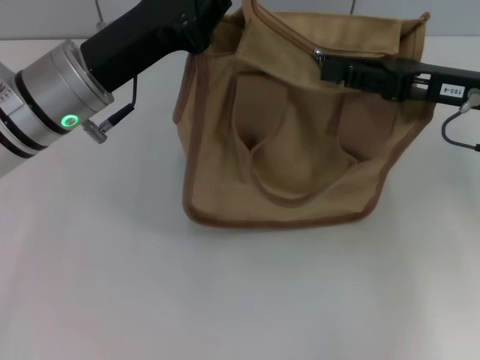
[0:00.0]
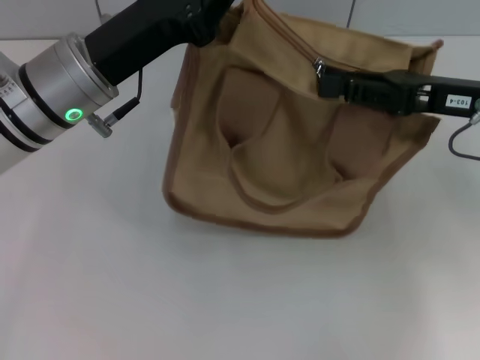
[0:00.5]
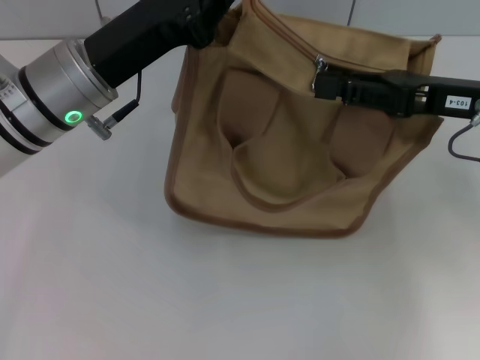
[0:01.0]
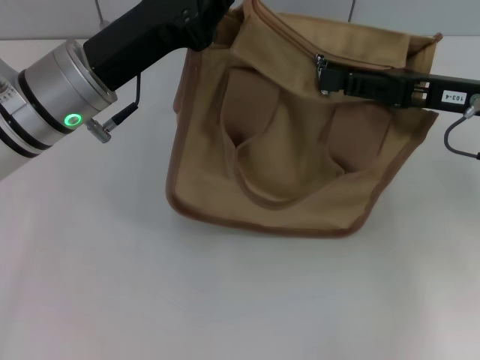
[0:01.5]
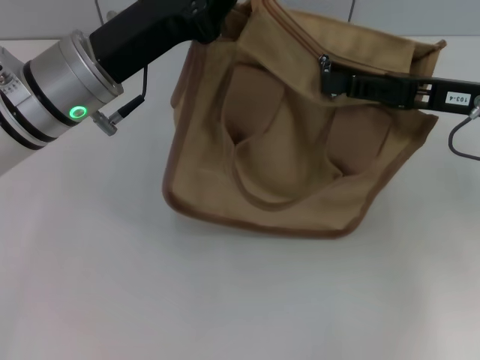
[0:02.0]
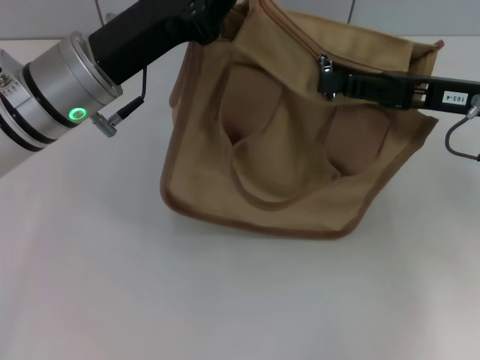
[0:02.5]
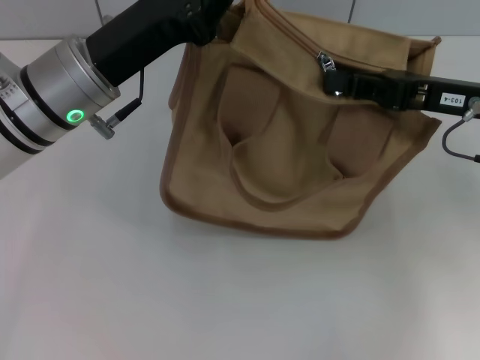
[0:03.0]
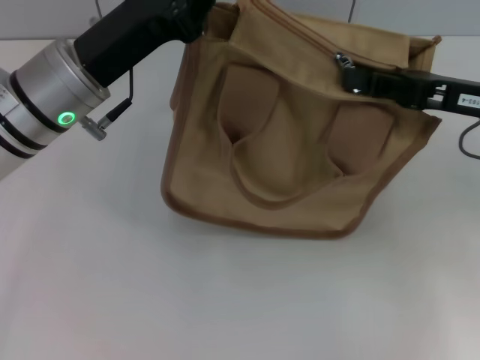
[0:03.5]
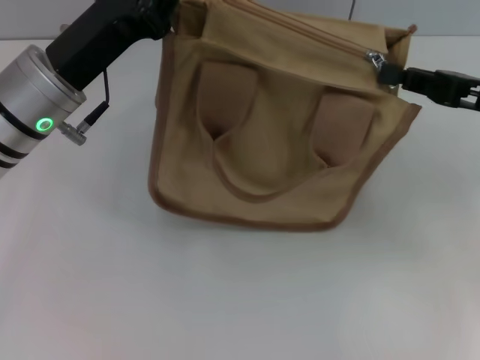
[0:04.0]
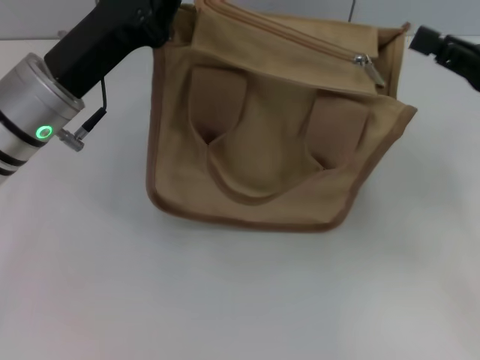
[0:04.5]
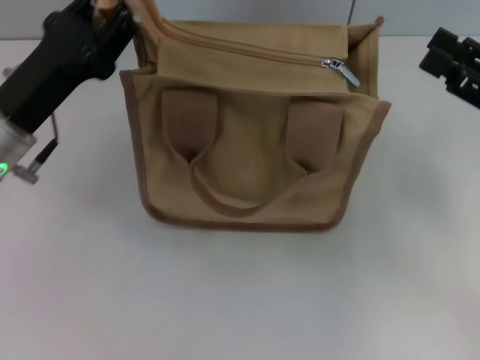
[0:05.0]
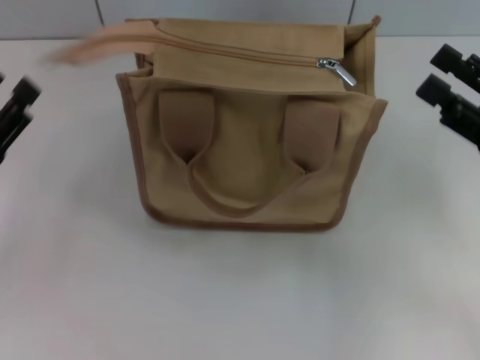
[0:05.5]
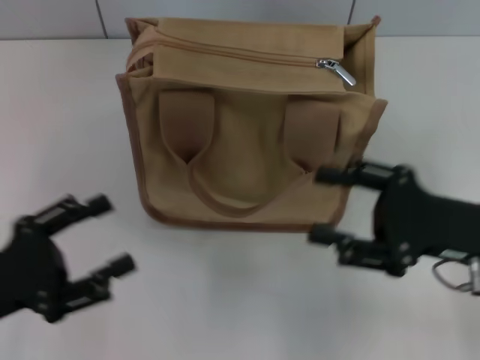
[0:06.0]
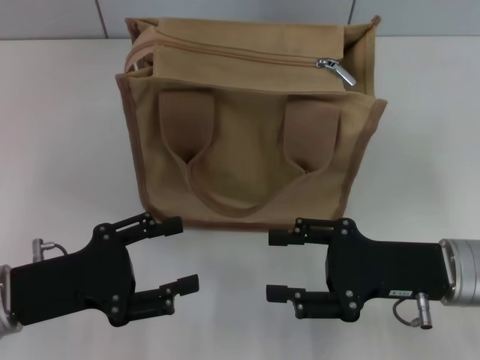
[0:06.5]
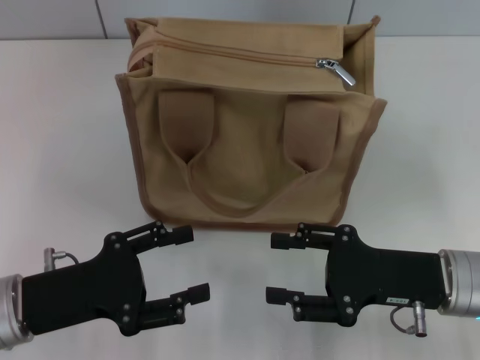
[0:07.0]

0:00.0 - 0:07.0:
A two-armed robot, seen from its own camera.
Step, 0:00.0 - 0:04.0: Pull up the zipper with your right hand.
Step, 0:04.5 - 0:05.0: Grab the zipper with your left hand.
0:00.0 - 0:02.0: There are only small adjustments of the grippers.
0:02.0 - 0:03.5: The right gripper closes.
0:03.5 - 0:05.0: The left gripper heads to the left, covering about 5 cm. Meanwhile the right gripper is displaced backward by roughly 5 cm, and opens.
0:05.0 - 0:07.0: The left gripper travels backward and downward by some 10 cm, and opens; the right gripper travels to the left and downward by approximately 15 cm.

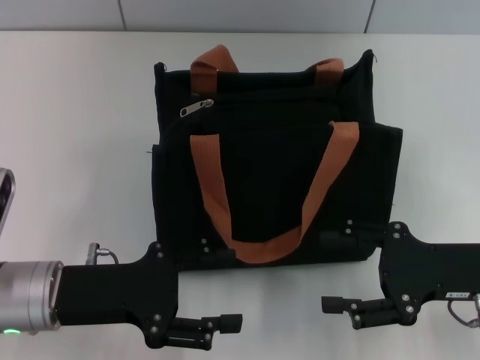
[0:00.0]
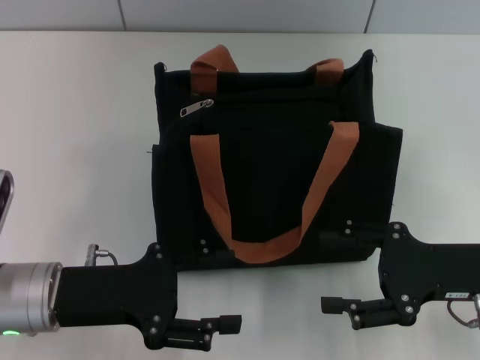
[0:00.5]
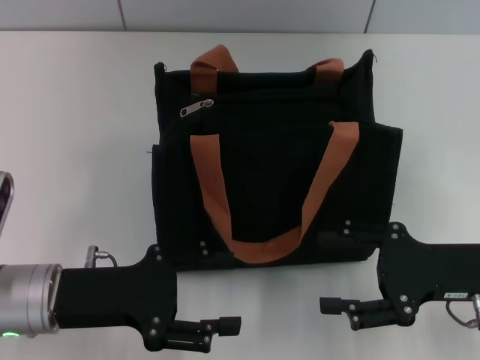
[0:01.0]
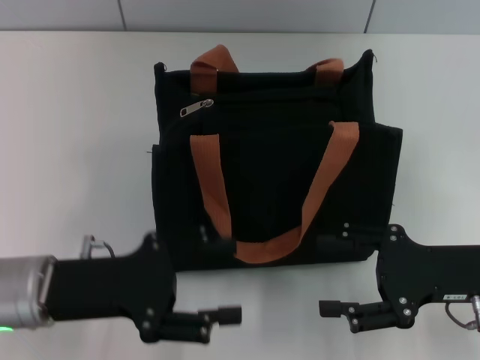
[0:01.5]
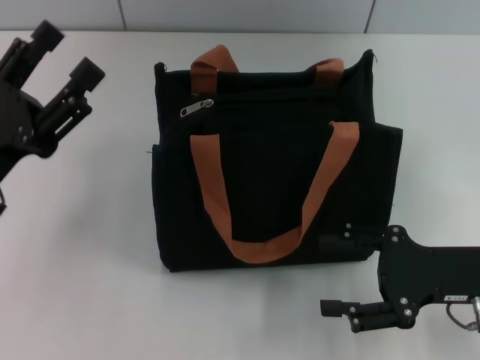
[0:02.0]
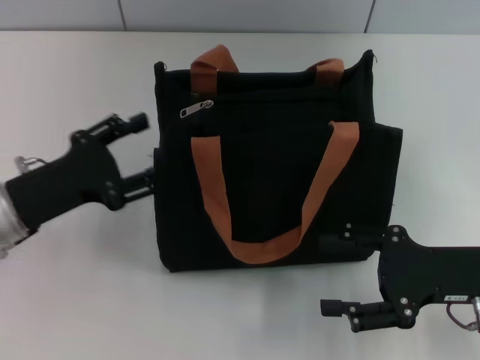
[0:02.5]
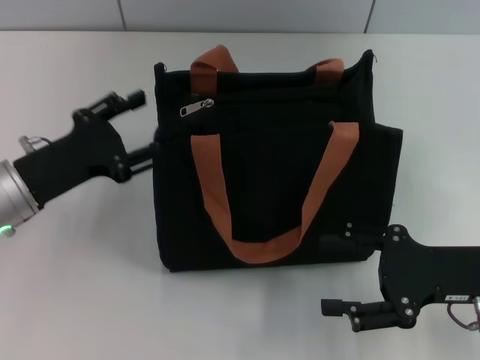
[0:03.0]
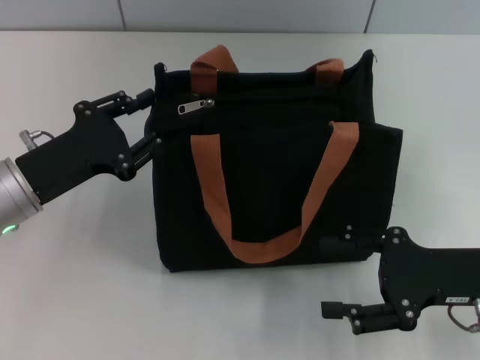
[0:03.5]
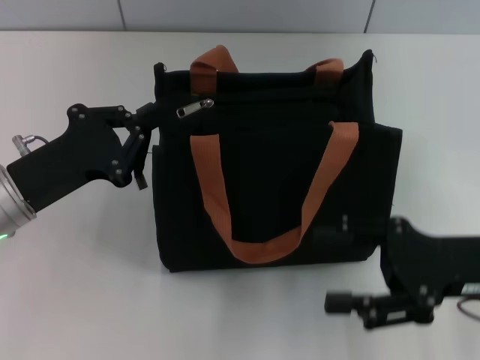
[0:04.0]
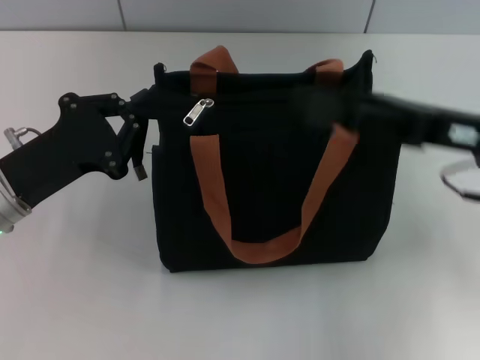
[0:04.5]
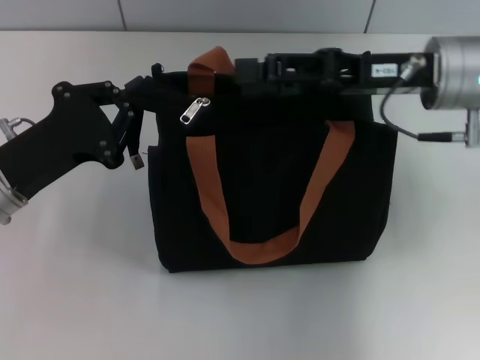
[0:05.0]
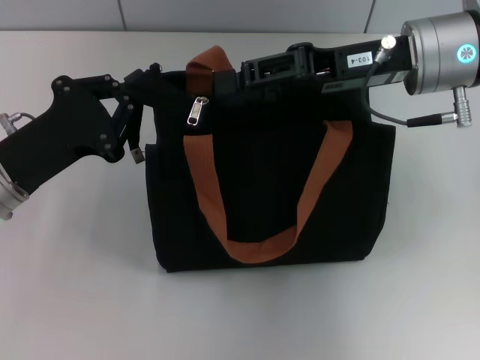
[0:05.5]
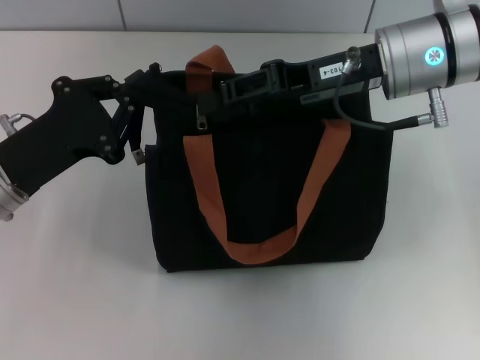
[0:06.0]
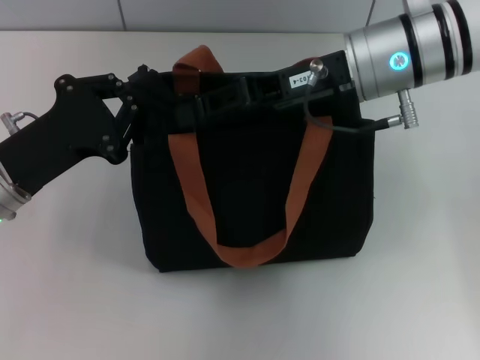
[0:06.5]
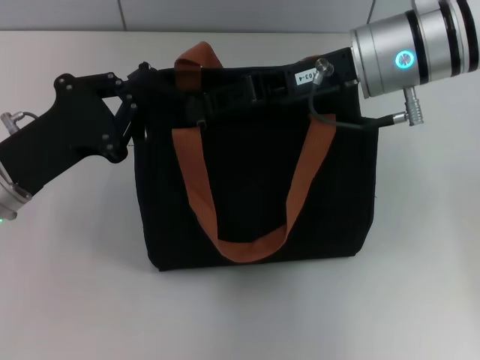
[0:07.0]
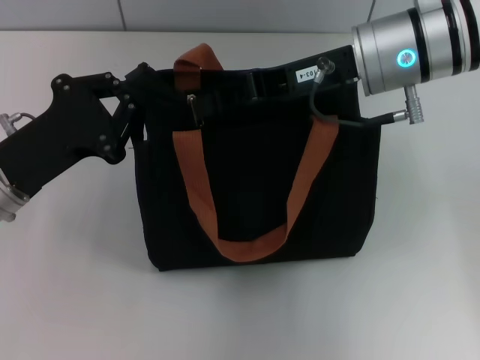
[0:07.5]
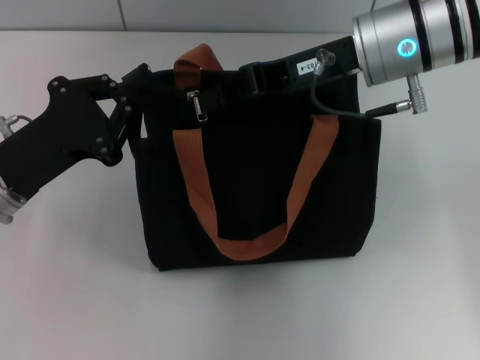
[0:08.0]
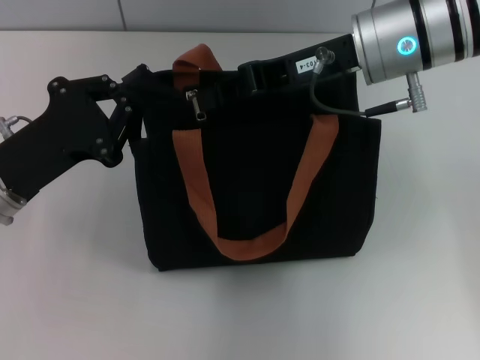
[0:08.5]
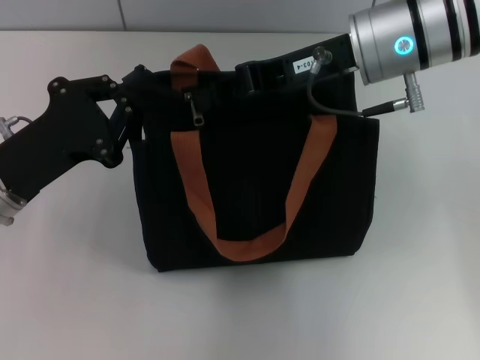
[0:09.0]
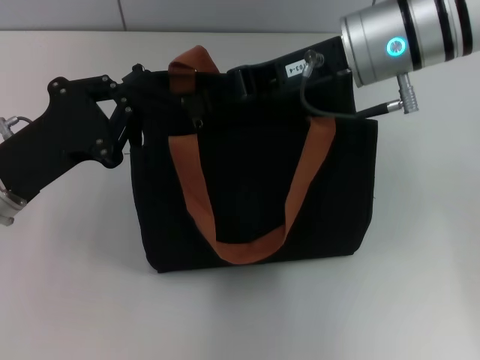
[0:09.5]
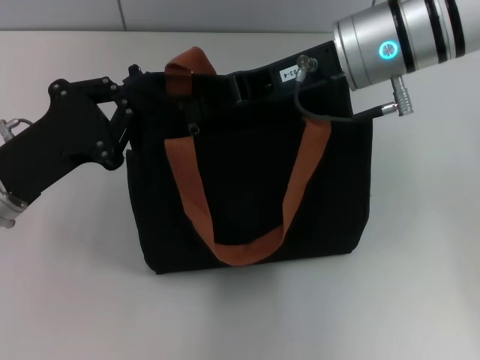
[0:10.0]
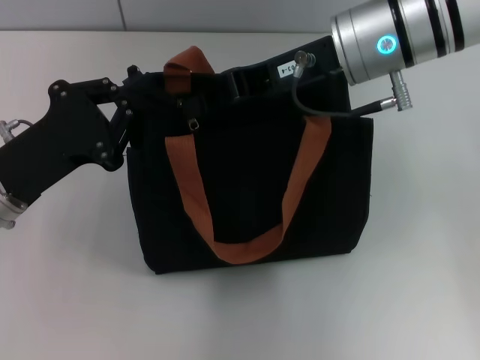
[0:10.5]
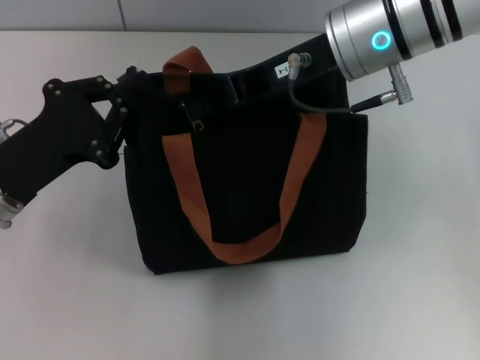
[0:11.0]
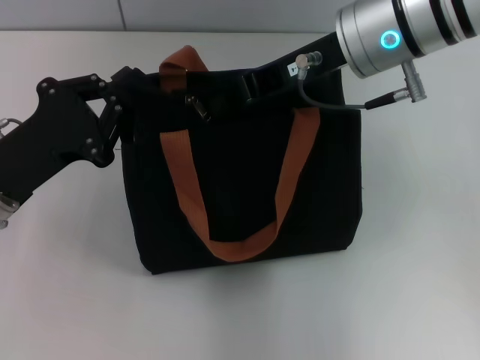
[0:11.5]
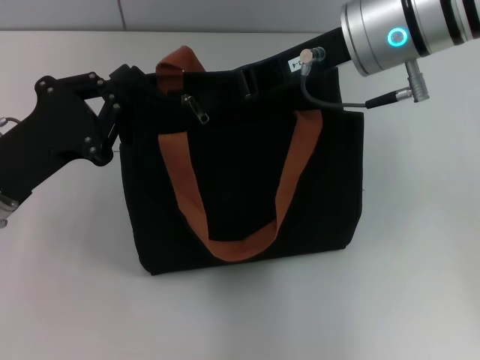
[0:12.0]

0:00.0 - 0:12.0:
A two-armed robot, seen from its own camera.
0:00.0 - 0:02.0: The left gripper ends up approximately 5 cm from where it was.
0:02.0 - 0:04.0: The left gripper closes.
0:04.0 - 0:06.0: The right gripper travels forward, to the left and upward by some 20 cm, and closes its fingers.
0:06.0 - 0:08.0: The right gripper closes its fingers.
0:08.0 - 0:12.0: The grippers make only small movements.

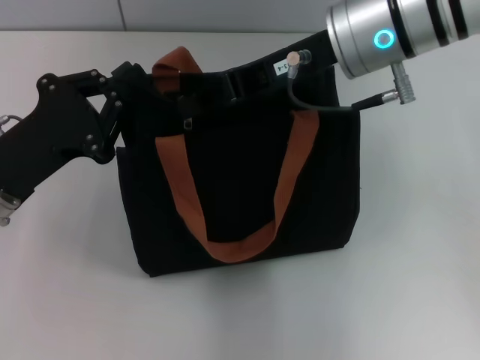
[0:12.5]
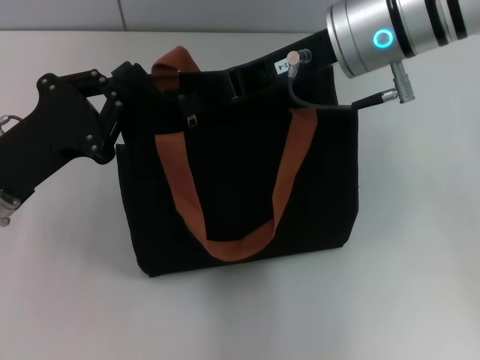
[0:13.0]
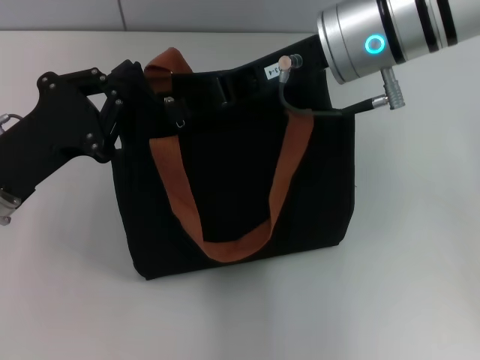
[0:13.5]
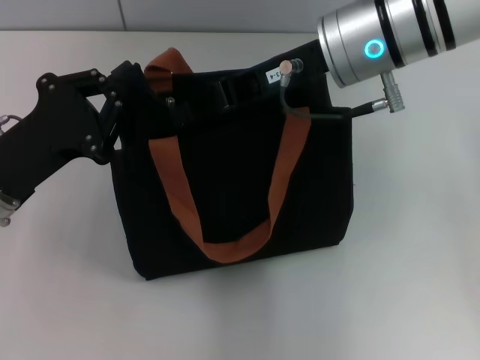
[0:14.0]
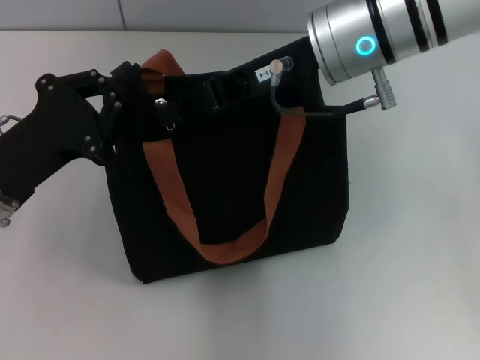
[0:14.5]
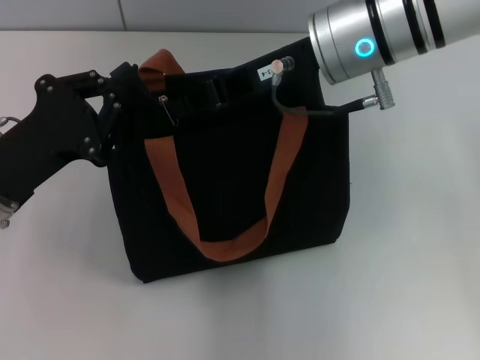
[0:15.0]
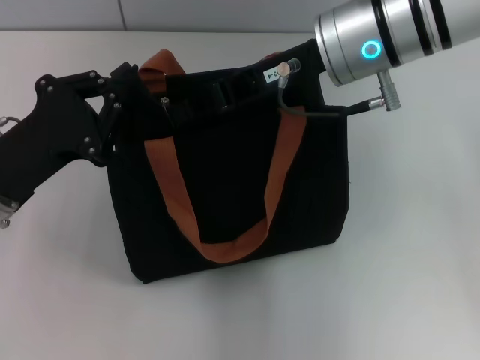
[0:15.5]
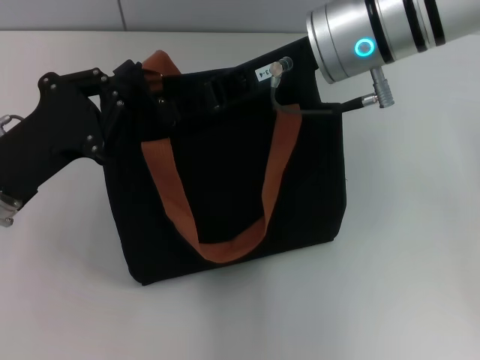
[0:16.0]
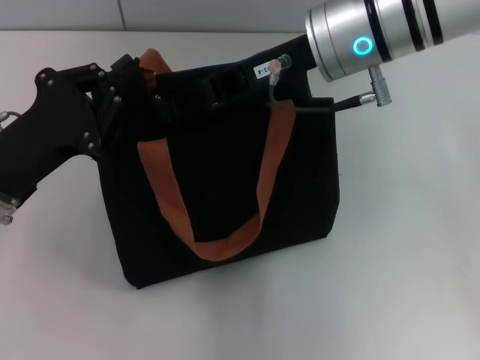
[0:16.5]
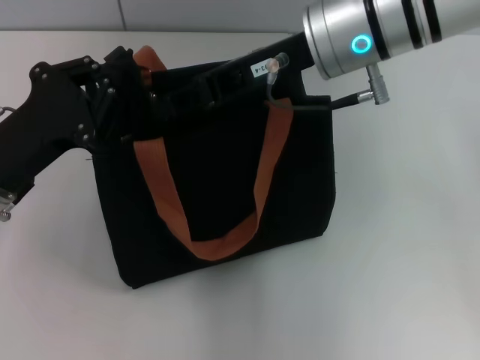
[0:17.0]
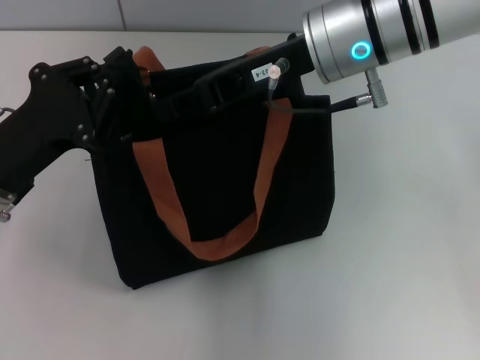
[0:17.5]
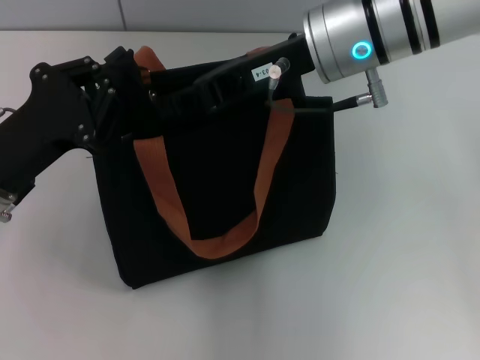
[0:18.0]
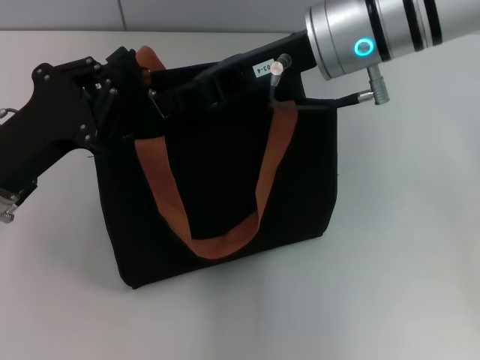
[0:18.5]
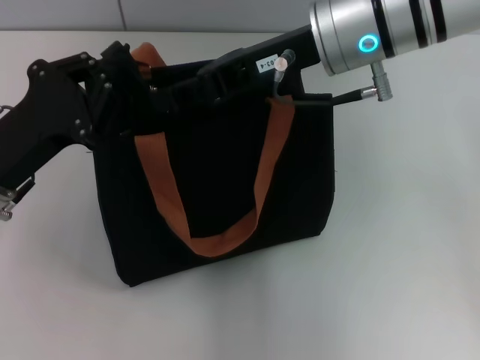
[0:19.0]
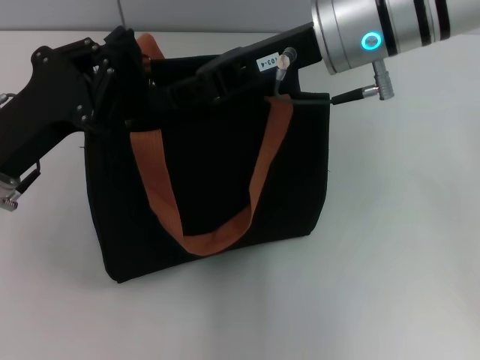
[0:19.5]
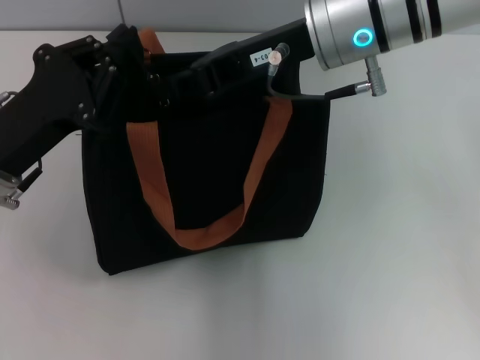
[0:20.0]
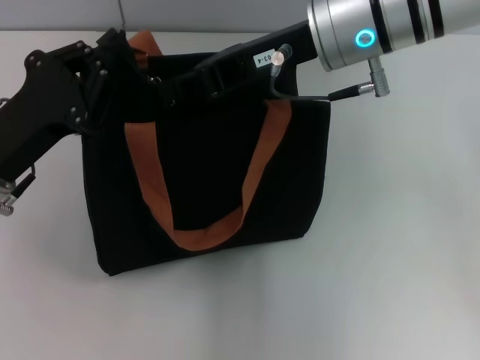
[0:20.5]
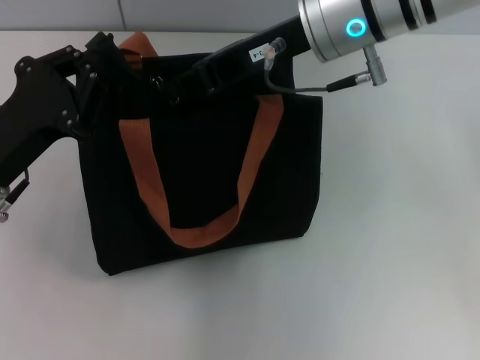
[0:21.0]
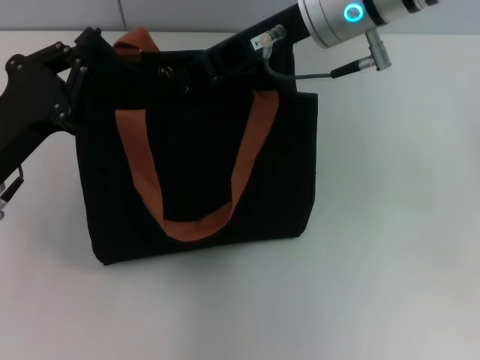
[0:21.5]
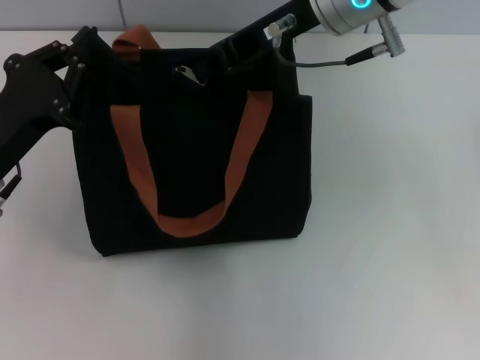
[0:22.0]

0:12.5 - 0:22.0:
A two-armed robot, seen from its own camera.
0:12.5 - 0:14.5: Both grippers stay put.
0:14.5 - 0:16.5: Neither gripper changes place.
0:16.5 - 0:18.0: Both grippers stay about where they are.
0:18.0 - 0:20.0: Neither gripper changes place.
0:20.0 - 0:22.0: There are only small adjustments of the grippers.
